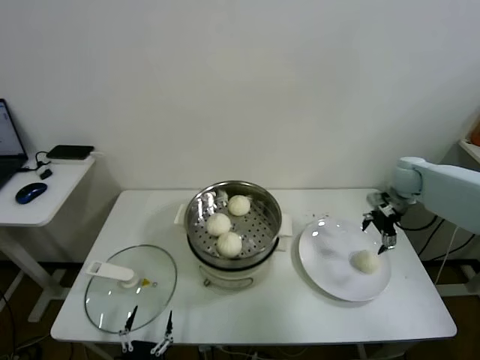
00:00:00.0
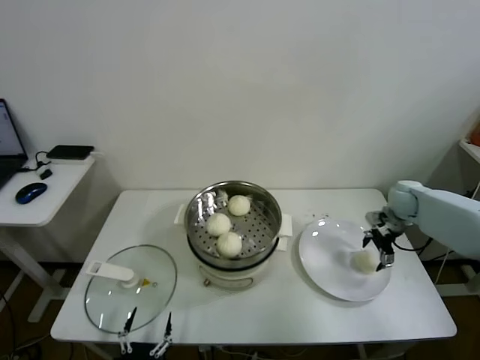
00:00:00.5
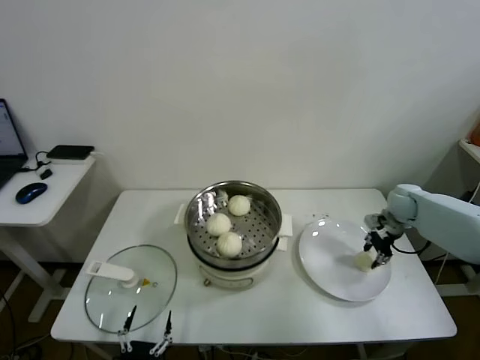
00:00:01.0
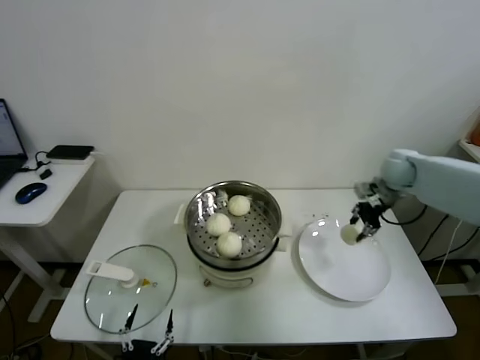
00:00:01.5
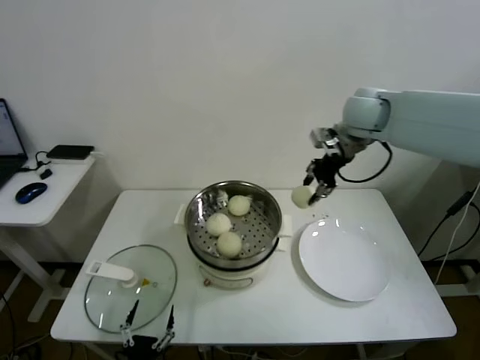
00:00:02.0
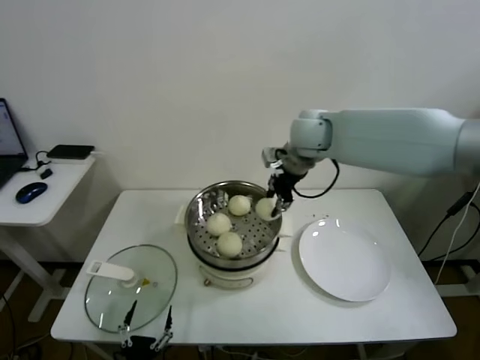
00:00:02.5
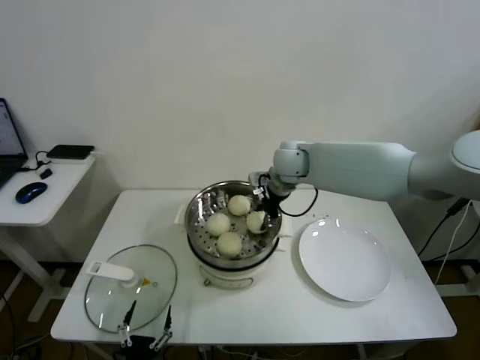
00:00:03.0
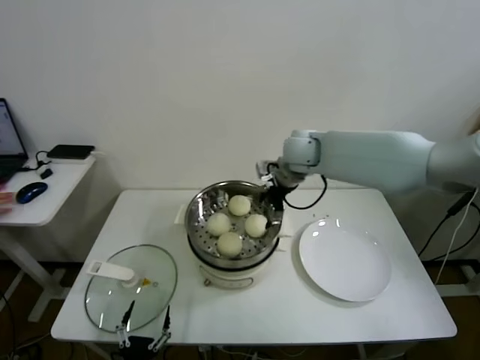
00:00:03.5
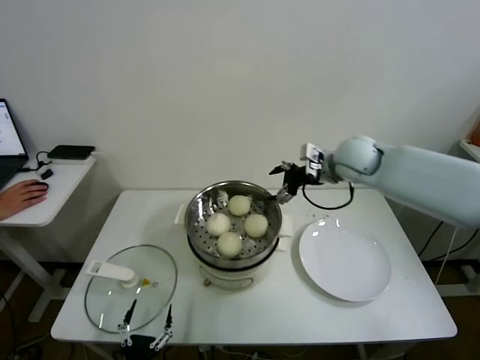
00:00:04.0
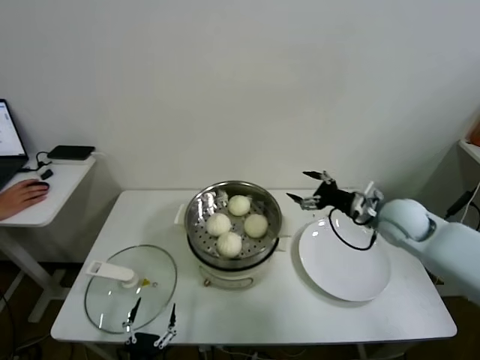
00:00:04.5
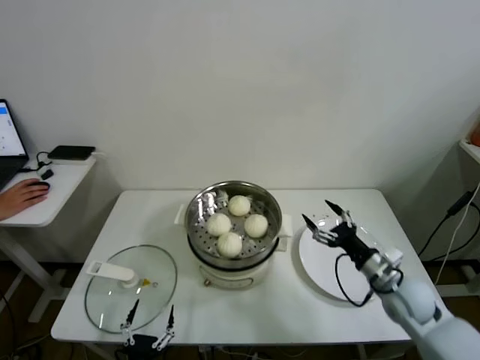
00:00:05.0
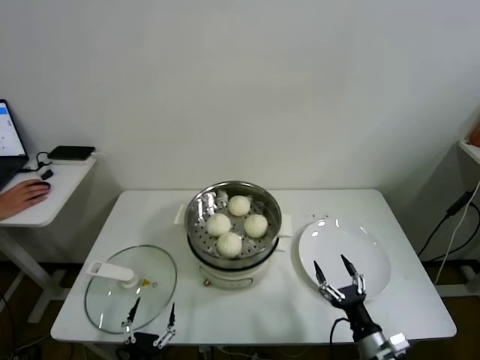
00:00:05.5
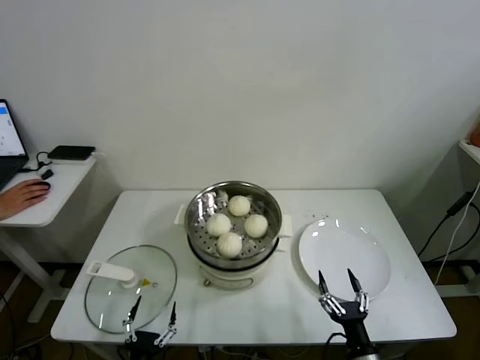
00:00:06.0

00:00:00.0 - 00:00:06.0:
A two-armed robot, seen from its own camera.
Task of the whole recording: take steamed baozi put them in steamer.
Step, 00:00:01.5 - 00:00:03.0: Place the baozi on the steamer with right gripper.
00:00:00.0 - 00:00:02.0: The right gripper goes some 25 cm upward and to the left, and closes up.
00:00:02.0 - 00:00:04.0: The right gripper travels downward by roughly 10 cm, travels to the left and back again, about 15 cm each way, and opens.
00:00:04.0 - 00:00:06.0: The right gripper goes approximately 50 cm backward and downward.
